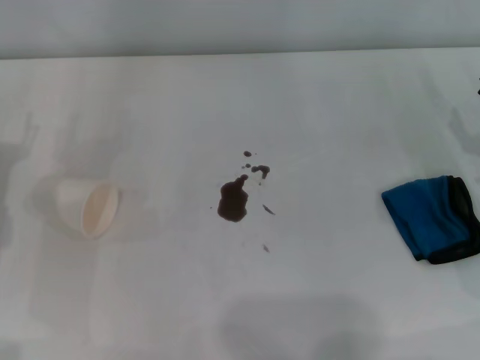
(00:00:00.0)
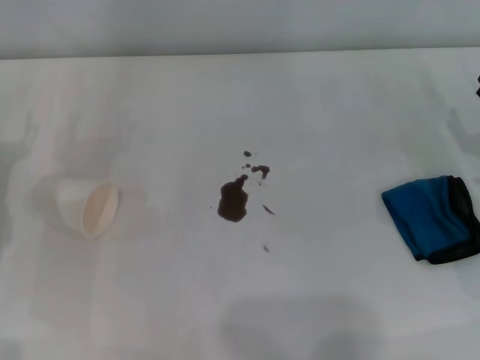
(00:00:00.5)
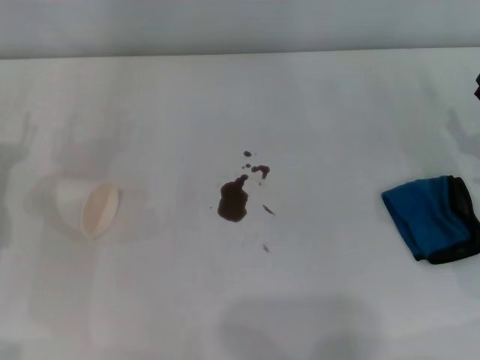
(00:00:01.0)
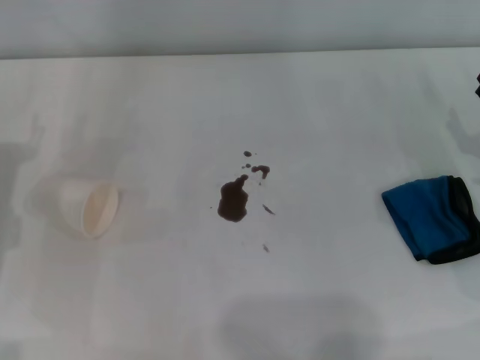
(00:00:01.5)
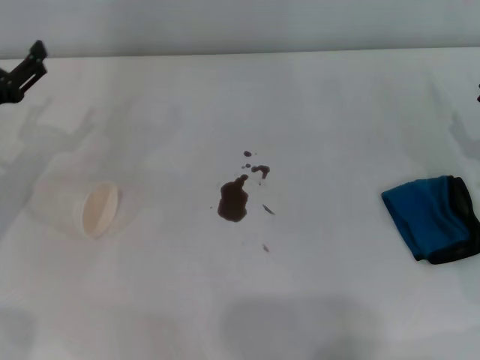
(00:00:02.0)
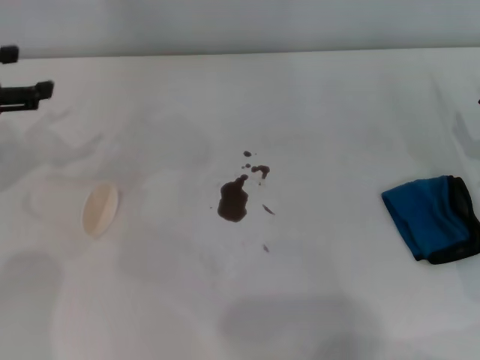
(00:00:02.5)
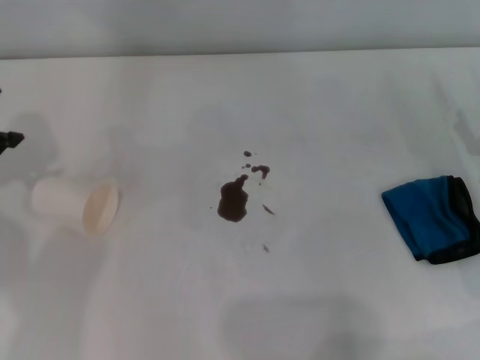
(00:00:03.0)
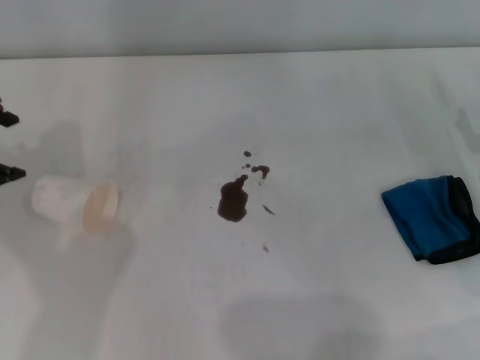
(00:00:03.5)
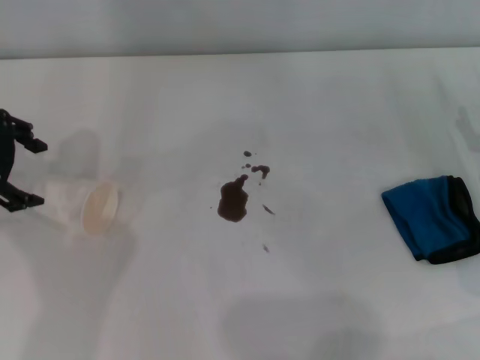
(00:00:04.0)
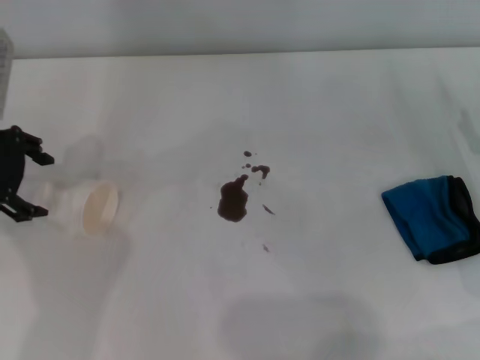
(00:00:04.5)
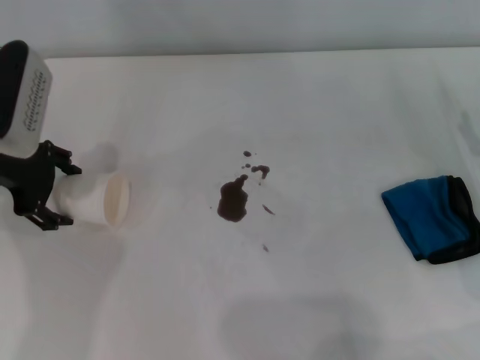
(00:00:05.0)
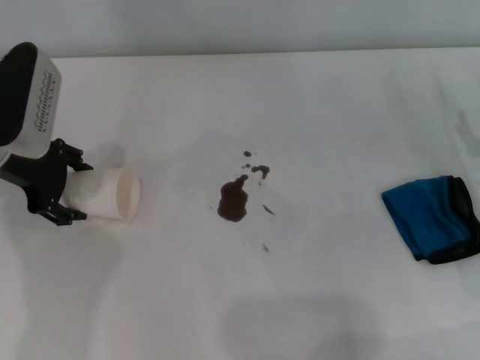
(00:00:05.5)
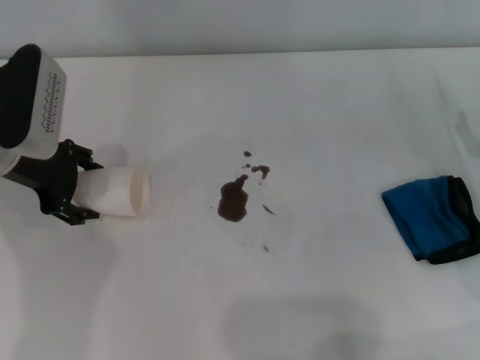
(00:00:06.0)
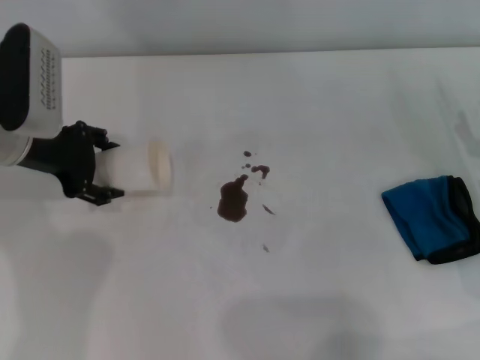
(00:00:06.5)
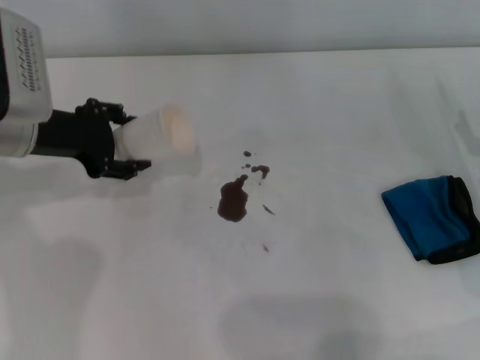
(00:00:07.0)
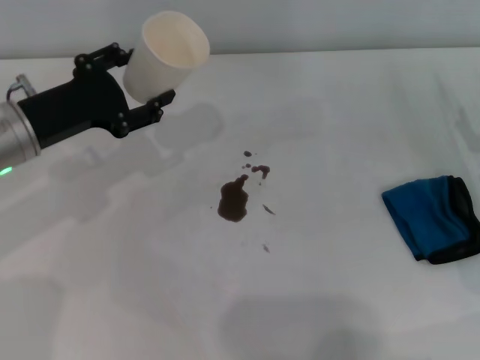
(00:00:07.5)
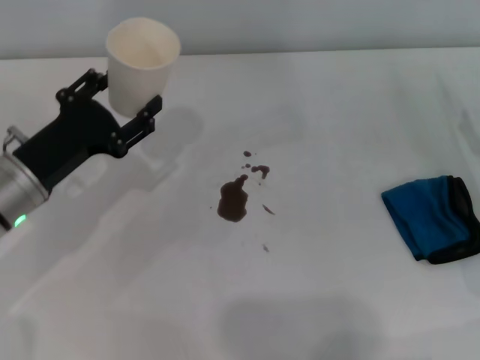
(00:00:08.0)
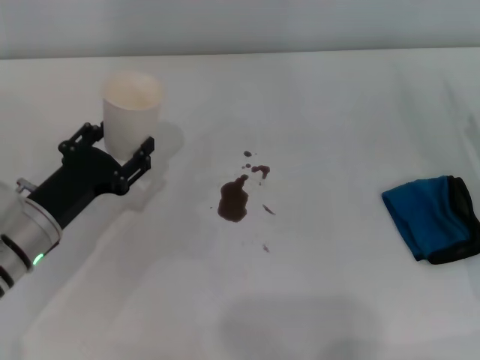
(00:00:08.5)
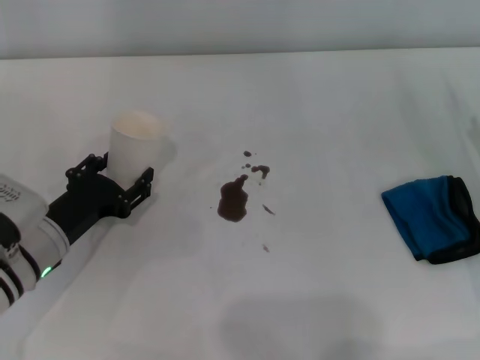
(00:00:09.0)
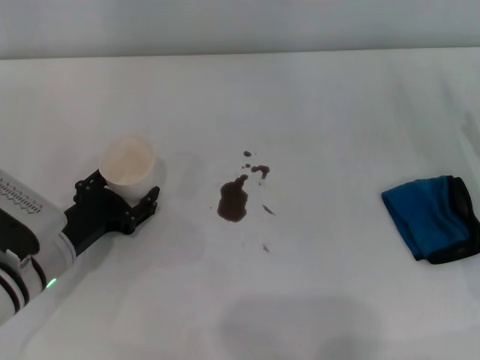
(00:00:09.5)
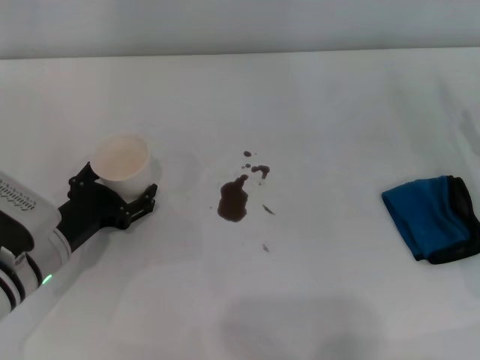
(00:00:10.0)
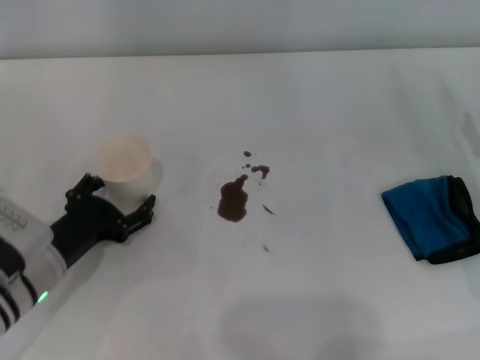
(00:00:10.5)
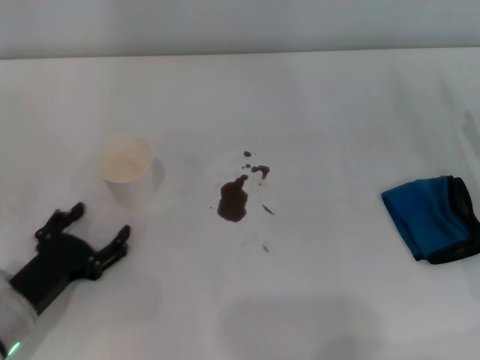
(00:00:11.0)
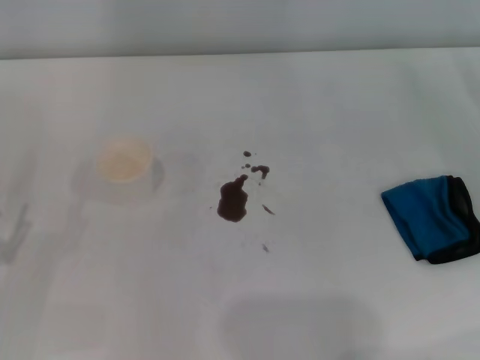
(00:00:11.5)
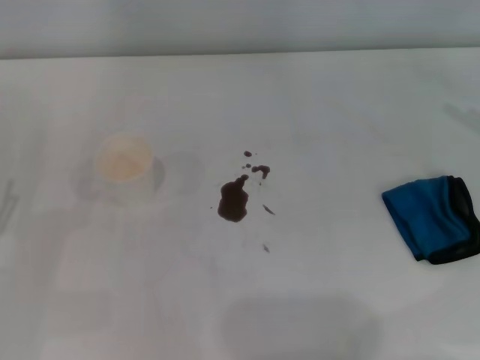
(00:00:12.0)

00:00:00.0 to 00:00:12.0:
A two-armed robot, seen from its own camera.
Step, 00:00:00.0 to 00:00:05.5: Grasp the paper cup with the left gripper.
Step, 00:00:06.0 to 00:00:09.5: Stand the paper cup upright with the left gripper.
00:00:02.0 to 00:00:04.0: The left gripper goes approximately 10 cm upward.
00:00:04.0 to 00:00:06.0: The left gripper moves downward, approximately 10 cm, and closes up.
00:00:06.0 to 00:00:08.0: The left gripper is displaced backward and downward by about 10 cm, and closes.
00:00:08.0 to 00:00:10.0: The left gripper is displaced downward by about 5 cm, and opens.
00:00:10.0 to 00:00:12.0: The left gripper travels to the left and backward by some 15 cm, and opens its fingers.

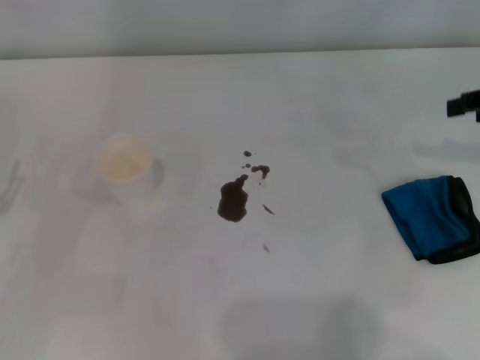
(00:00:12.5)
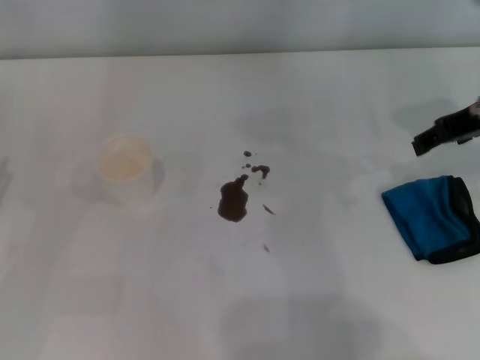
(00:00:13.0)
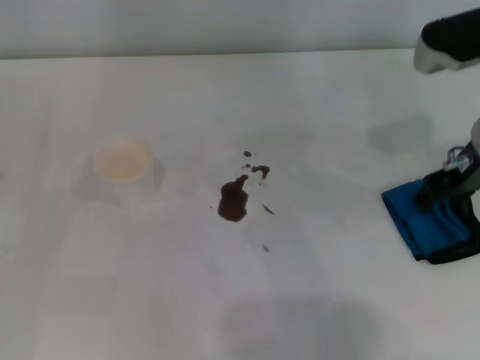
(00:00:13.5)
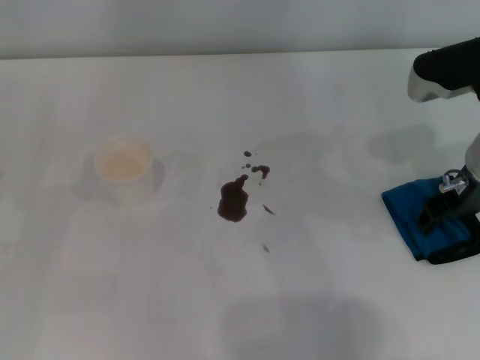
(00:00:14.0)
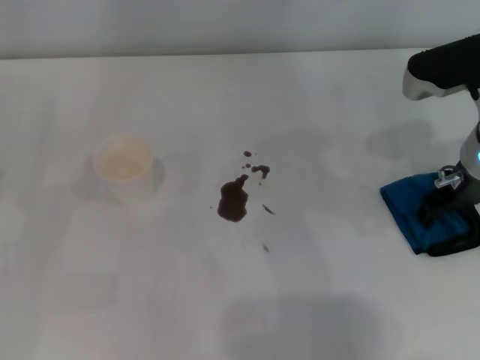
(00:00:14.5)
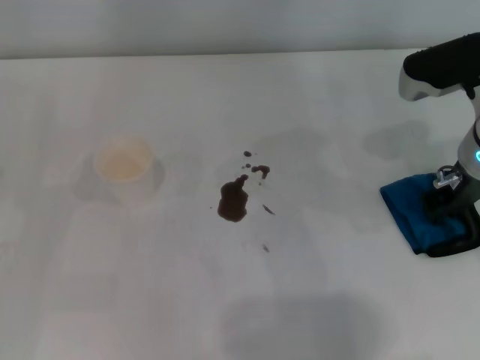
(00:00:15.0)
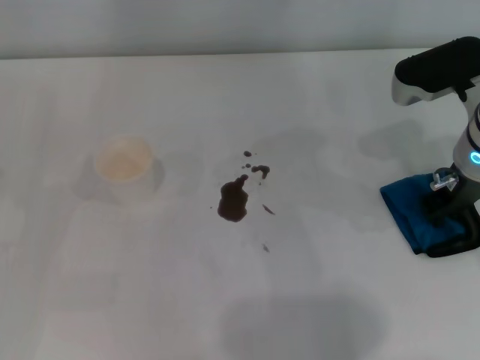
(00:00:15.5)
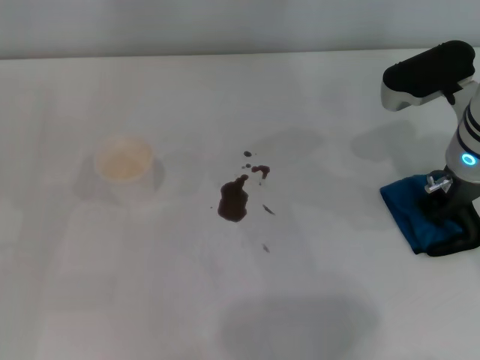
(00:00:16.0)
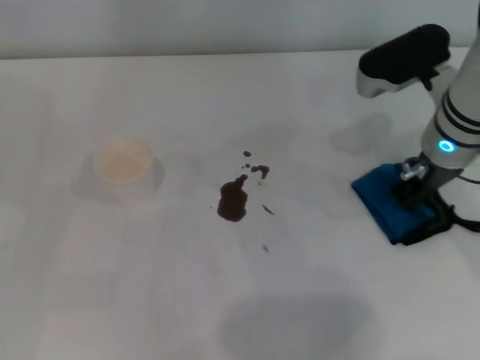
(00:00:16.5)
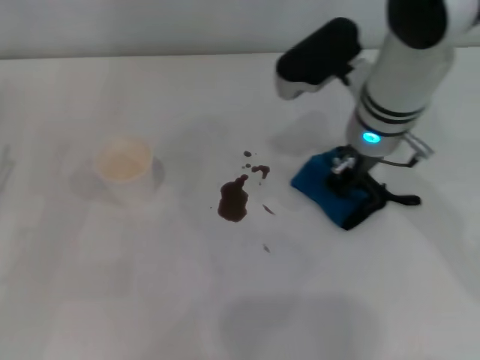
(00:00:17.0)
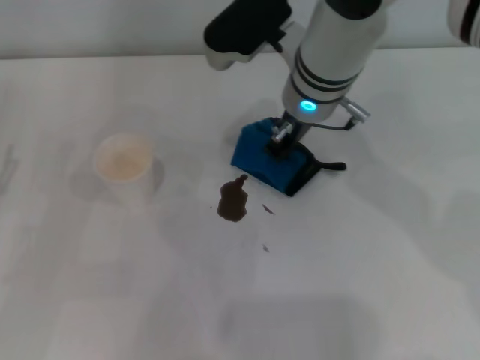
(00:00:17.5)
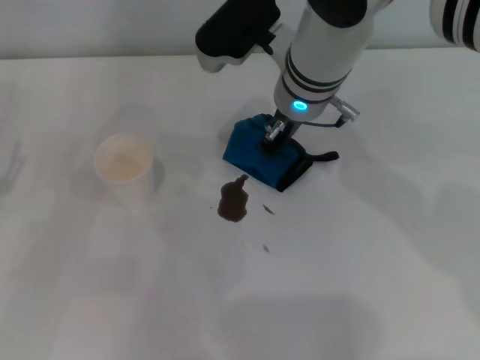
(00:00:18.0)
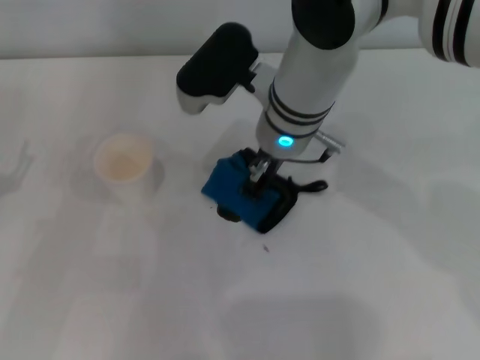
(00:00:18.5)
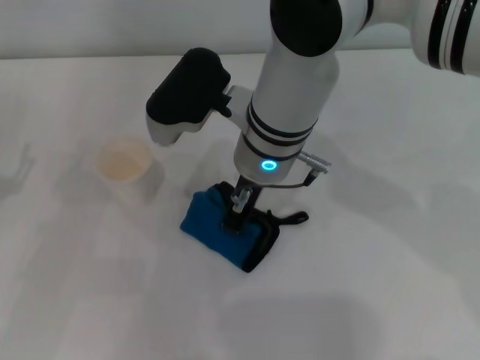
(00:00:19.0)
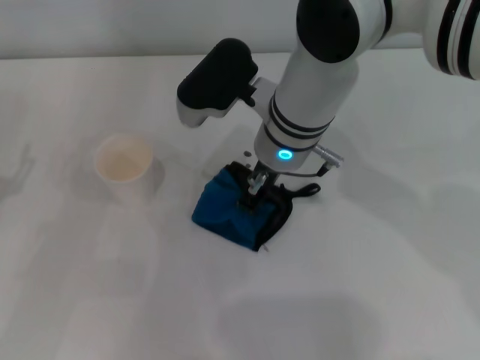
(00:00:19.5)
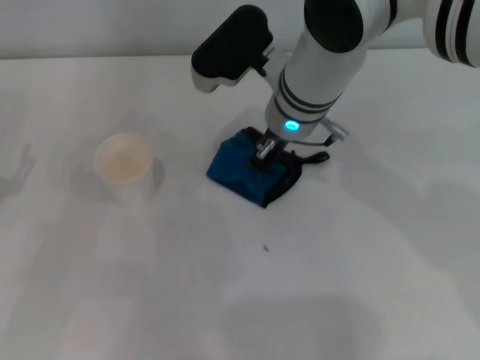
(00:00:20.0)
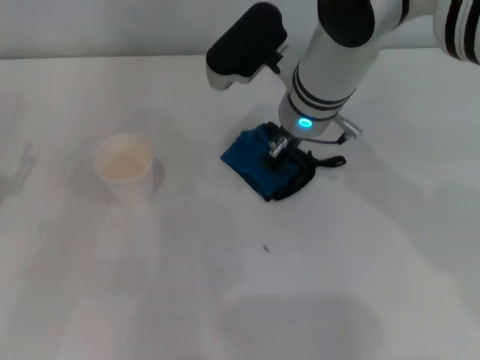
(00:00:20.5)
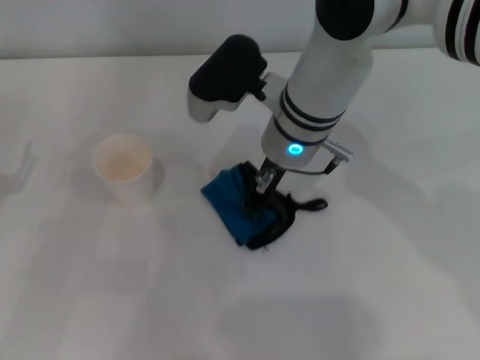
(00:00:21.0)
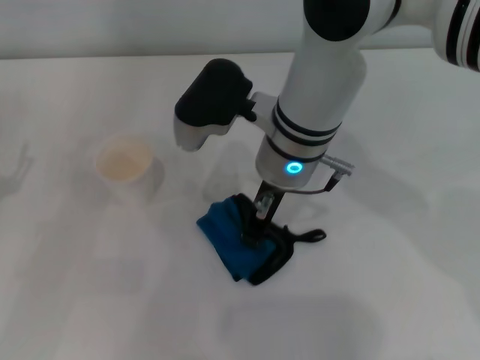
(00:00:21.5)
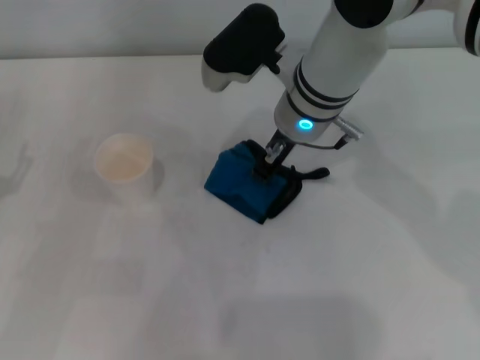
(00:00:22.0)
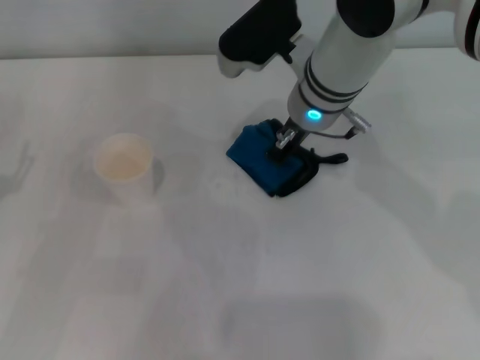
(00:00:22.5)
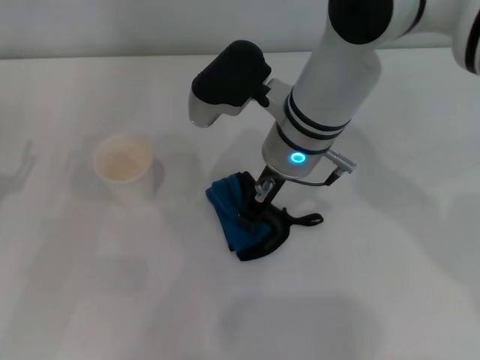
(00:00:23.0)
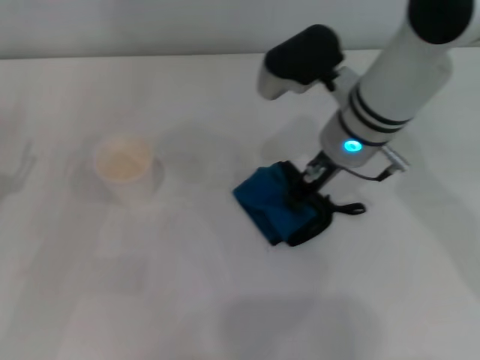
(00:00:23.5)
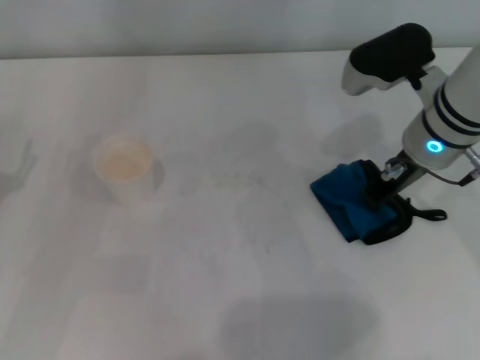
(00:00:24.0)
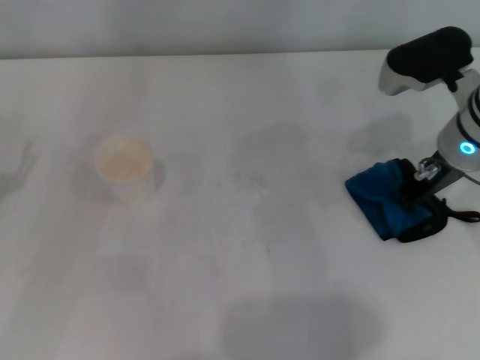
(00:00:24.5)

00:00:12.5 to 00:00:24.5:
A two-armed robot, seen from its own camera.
Step, 00:00:12.5 to 00:00:16.0: Grasp the rag with the right gripper.
00:00:12.5 to 00:00:14.5: The right gripper heads to the left and downward, covering roughly 15 cm.
00:00:14.5 to 00:00:16.5: The right gripper closes up.
00:00:16.5 to 00:00:18.5: The right gripper heads to the left, covering roughly 15 cm.
00:00:18.5 to 00:00:20.5: There are only small adjustments of the grippers.
00:00:22.5 to 00:00:24.5: The right gripper travels to the right by about 15 cm.

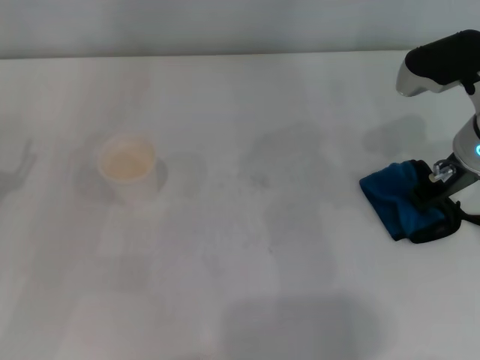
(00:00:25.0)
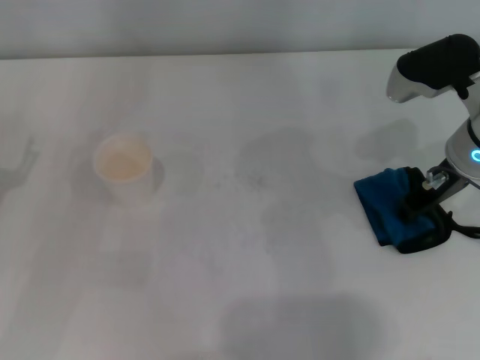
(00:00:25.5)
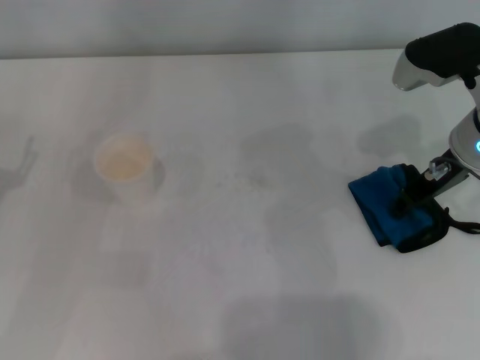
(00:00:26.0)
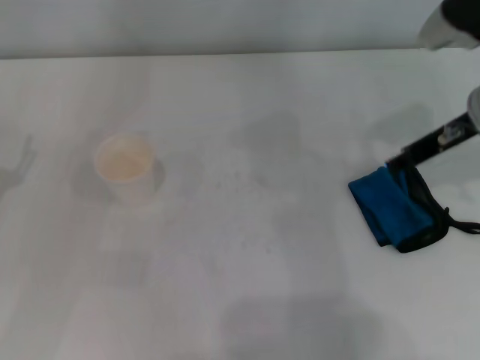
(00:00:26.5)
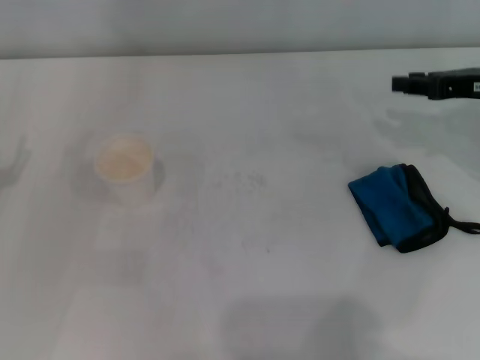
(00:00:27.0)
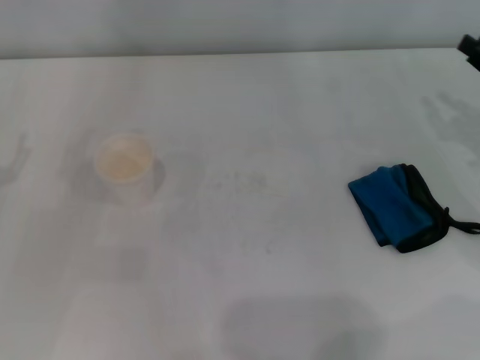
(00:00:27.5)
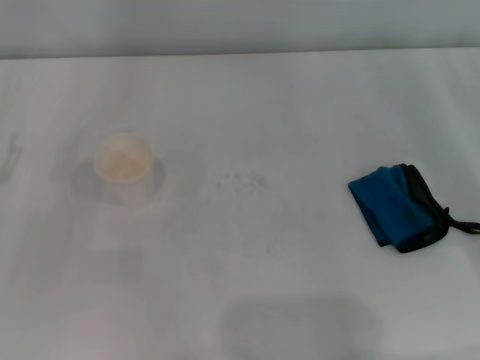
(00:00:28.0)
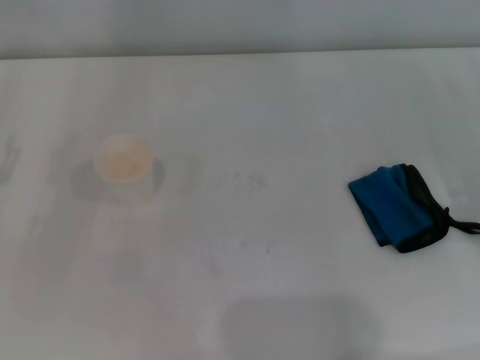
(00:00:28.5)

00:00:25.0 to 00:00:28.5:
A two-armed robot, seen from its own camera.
00:00:25.0 to 00:00:27.0: The right gripper moves to the right, some 10 cm, and opens its fingers.
00:00:27.0 to 00:00:28.5: The right gripper travels backward, downward and to the right by about 15 cm.
